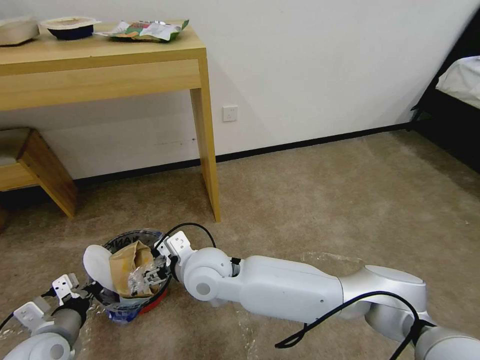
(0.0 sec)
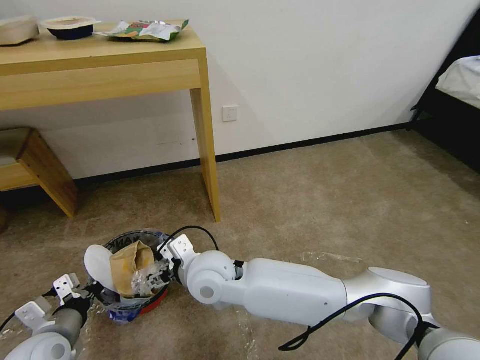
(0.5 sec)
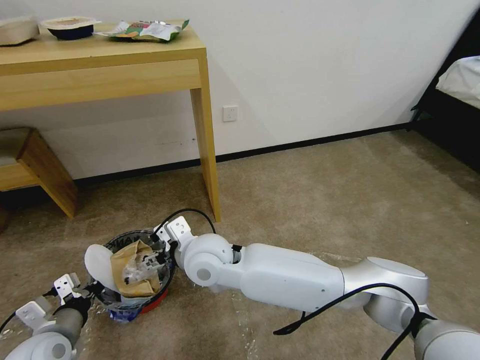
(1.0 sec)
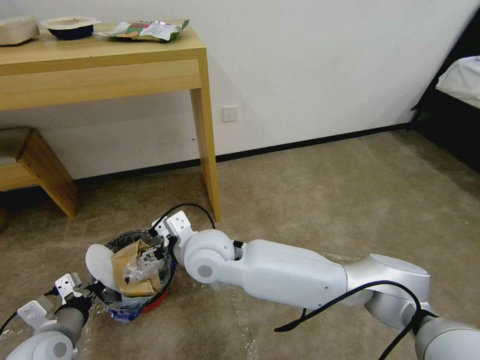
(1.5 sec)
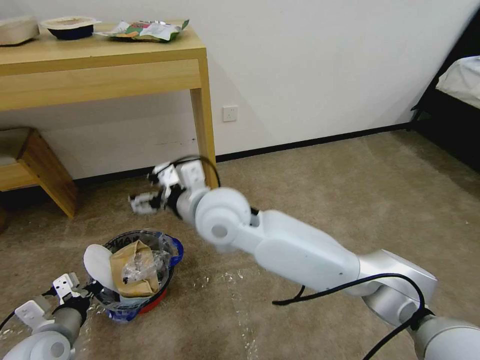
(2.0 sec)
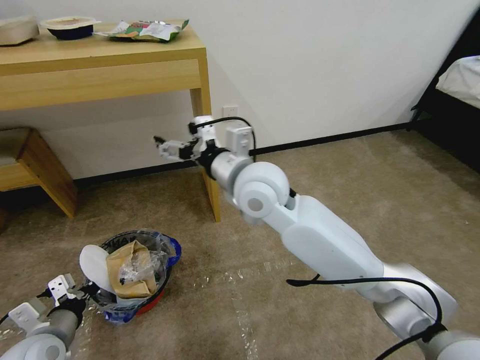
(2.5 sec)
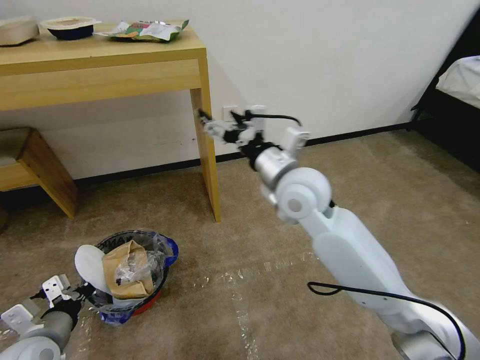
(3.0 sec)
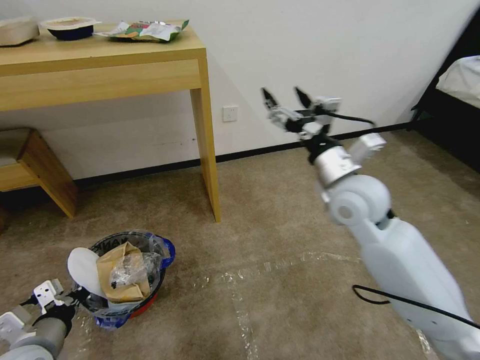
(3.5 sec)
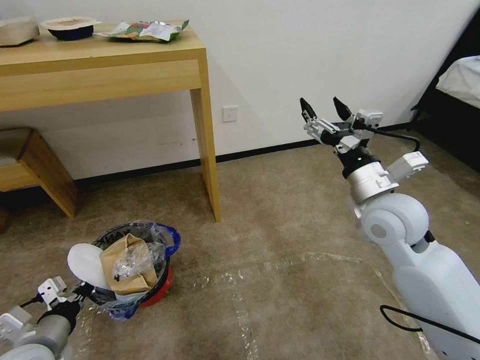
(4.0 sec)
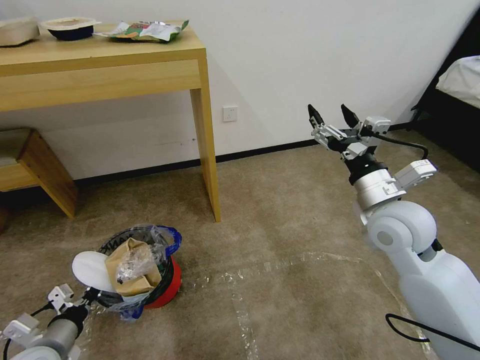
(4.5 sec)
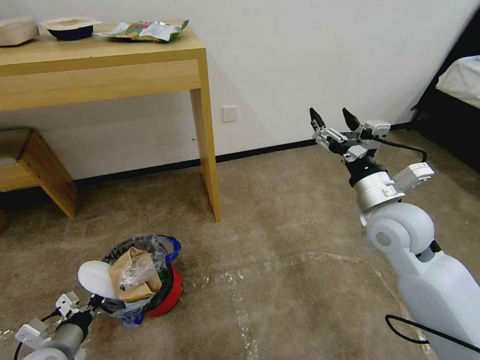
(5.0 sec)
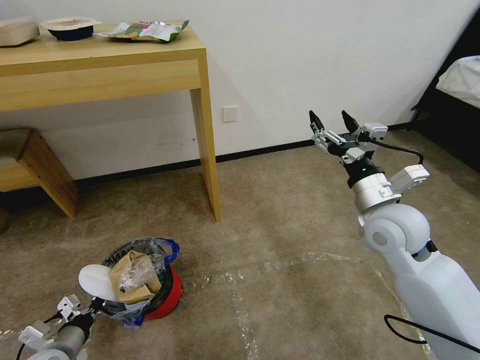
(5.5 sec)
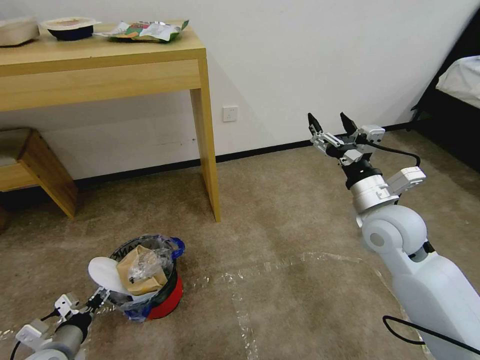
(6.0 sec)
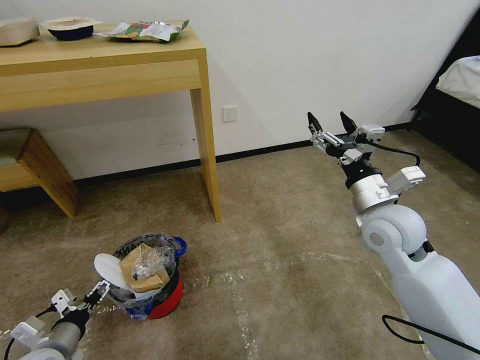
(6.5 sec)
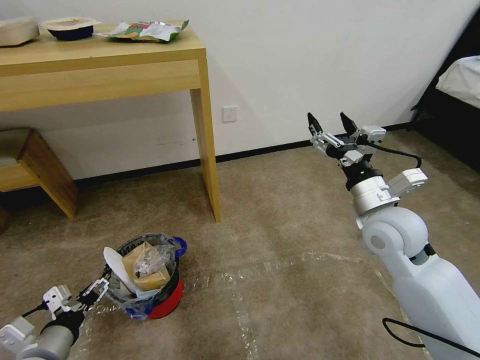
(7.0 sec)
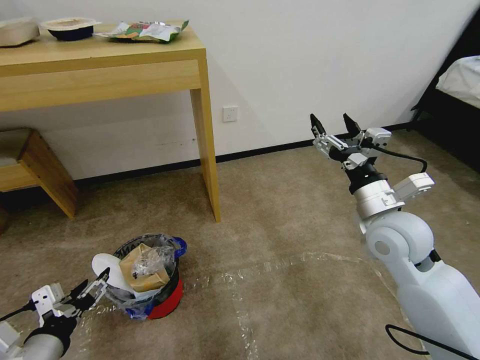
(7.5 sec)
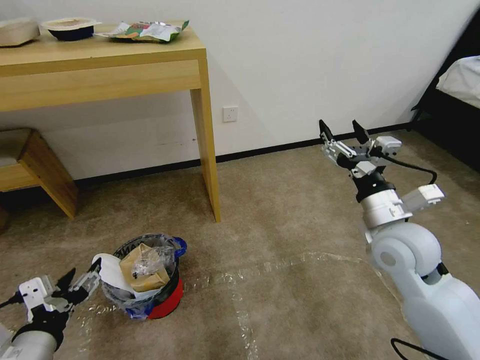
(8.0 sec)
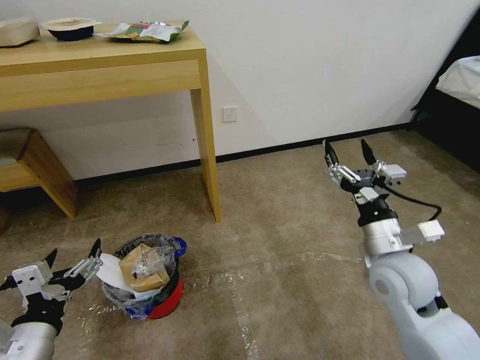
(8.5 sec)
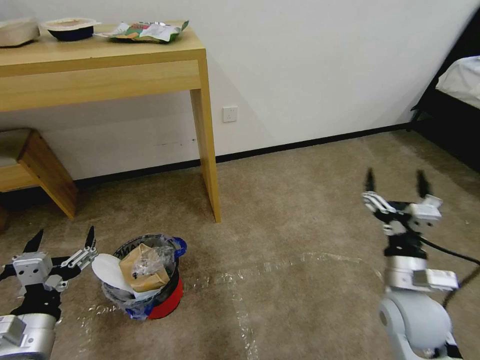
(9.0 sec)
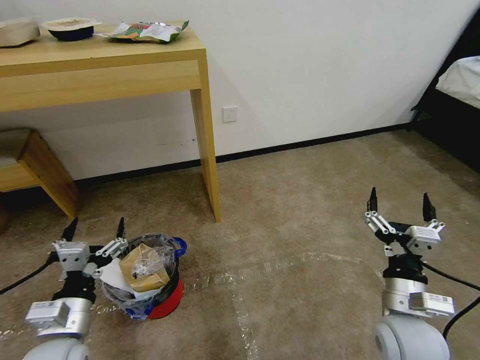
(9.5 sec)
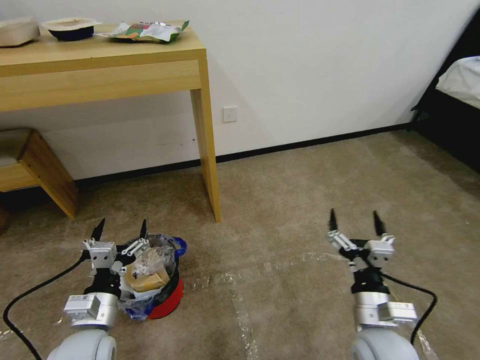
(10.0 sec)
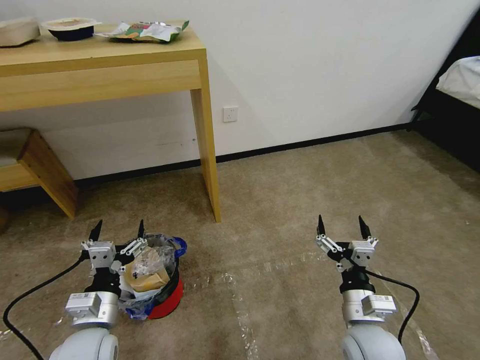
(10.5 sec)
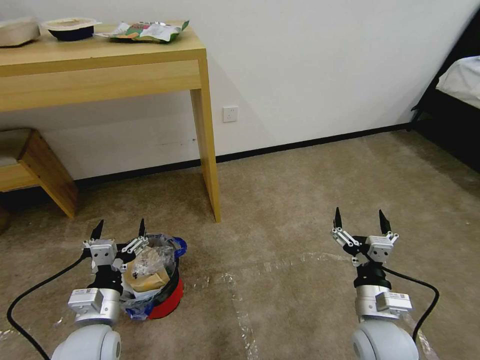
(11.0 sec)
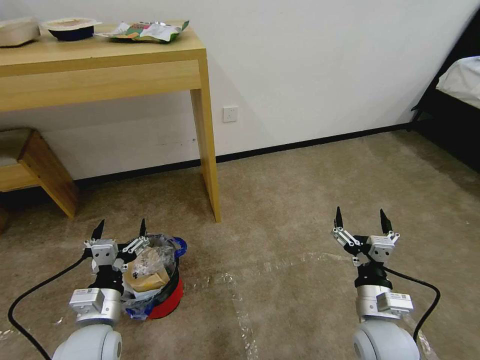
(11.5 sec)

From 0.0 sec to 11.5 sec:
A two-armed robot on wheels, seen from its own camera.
Task of the whole recording: Pick up the trash bin and place the garbage on the floor into it.
From 0.0 sec to 2.0 sec: The right gripper heads upward, covering approximately 10 cm.
From 2.0 sec to 4.0 sec: The right gripper is displaced to the right by about 30 cm.
From 4.0 sec to 6.0 sec: The left gripper shifts some 10 cm downward, and opens.
From 6.0 sec to 7.5 sec: The left gripper moves upward and to the right, some 15 cm.
From 7.5 sec to 9.5 sec: The right gripper goes approximately 20 cm backward and downward. The left gripper is displaced forward by some 5 cm.
From 9.5 sec to 11.5 sec: The left gripper shifts by approximately 5 cm.
